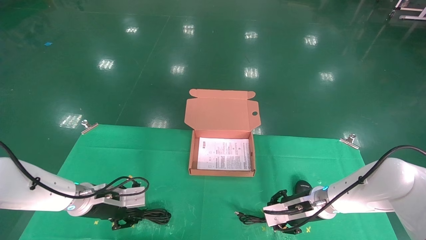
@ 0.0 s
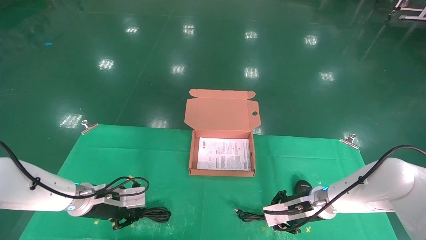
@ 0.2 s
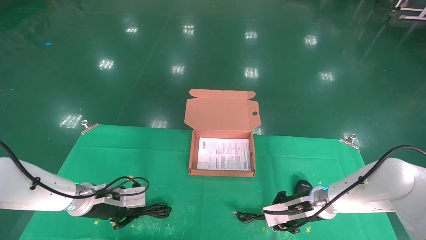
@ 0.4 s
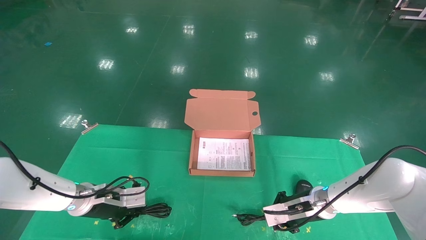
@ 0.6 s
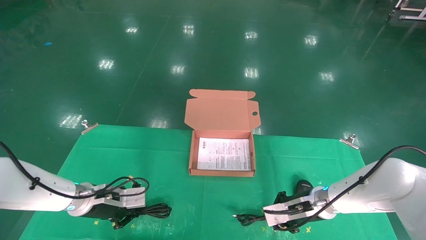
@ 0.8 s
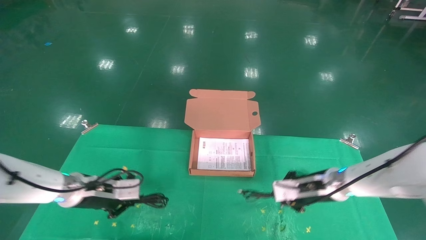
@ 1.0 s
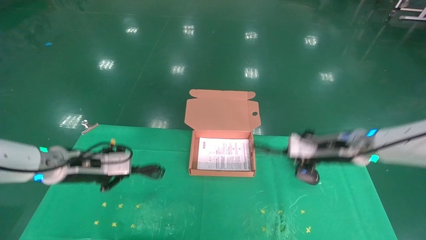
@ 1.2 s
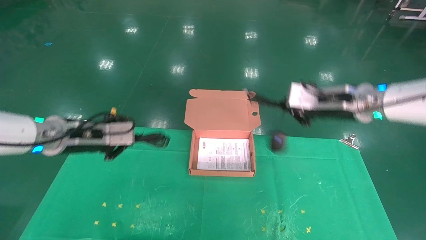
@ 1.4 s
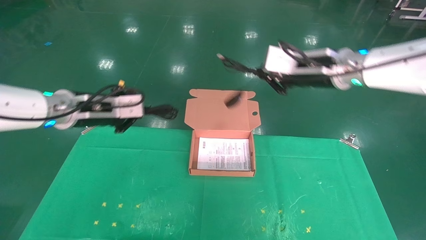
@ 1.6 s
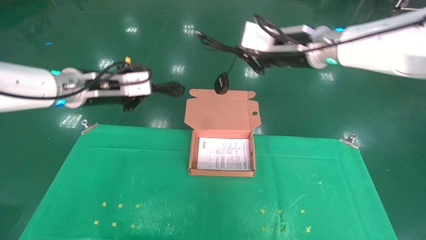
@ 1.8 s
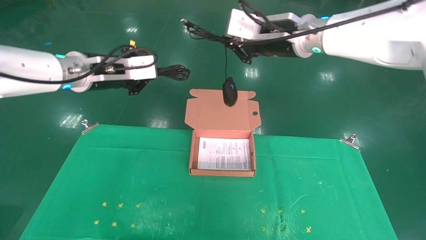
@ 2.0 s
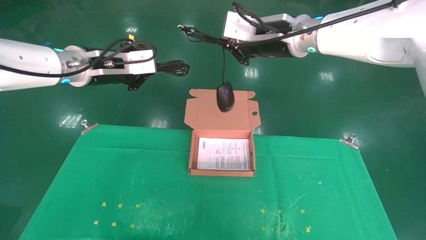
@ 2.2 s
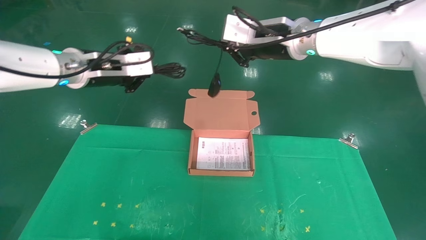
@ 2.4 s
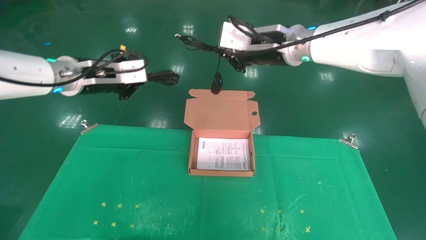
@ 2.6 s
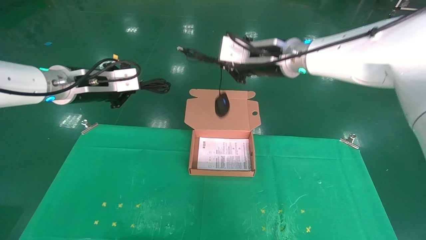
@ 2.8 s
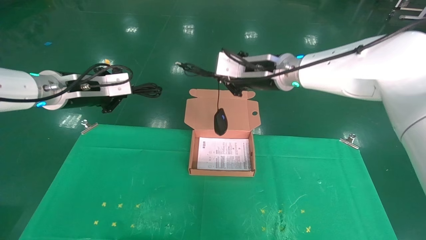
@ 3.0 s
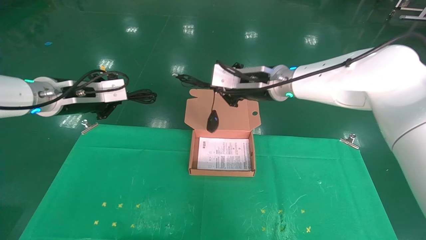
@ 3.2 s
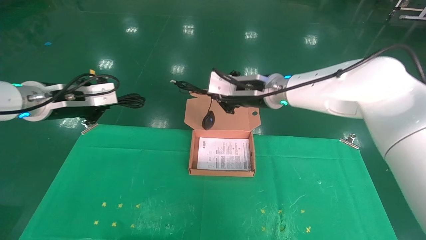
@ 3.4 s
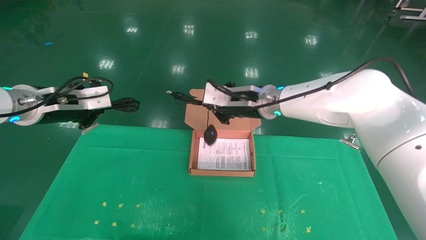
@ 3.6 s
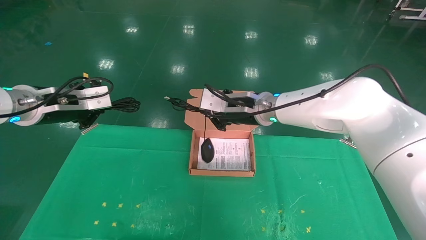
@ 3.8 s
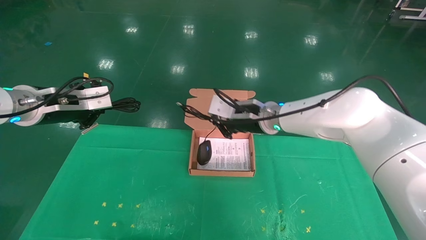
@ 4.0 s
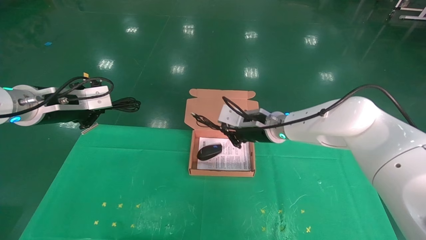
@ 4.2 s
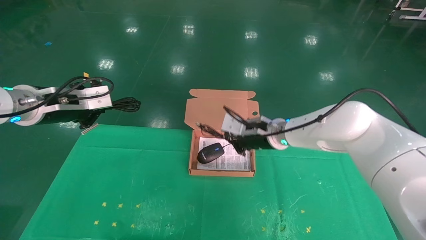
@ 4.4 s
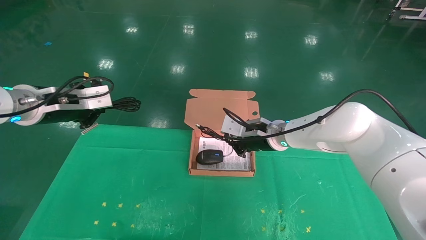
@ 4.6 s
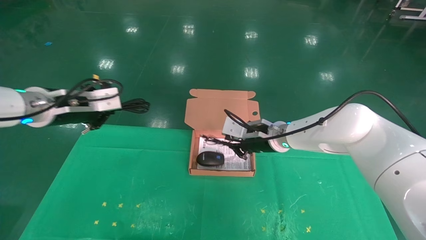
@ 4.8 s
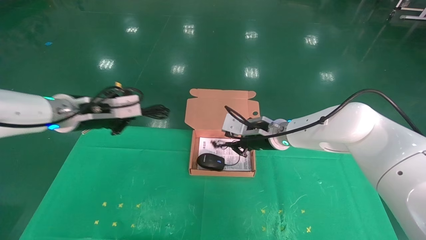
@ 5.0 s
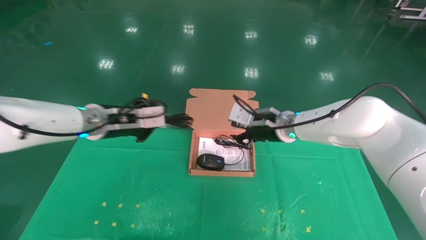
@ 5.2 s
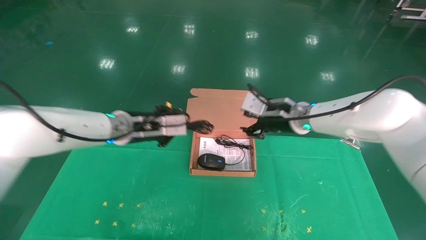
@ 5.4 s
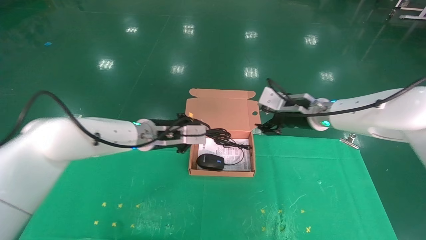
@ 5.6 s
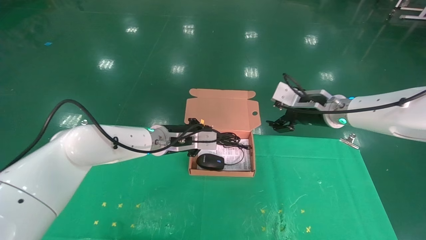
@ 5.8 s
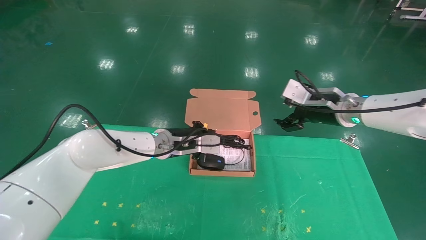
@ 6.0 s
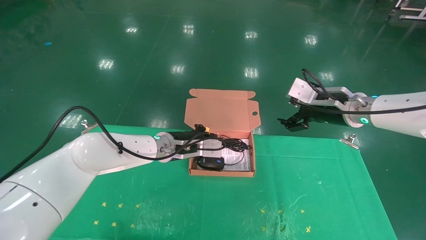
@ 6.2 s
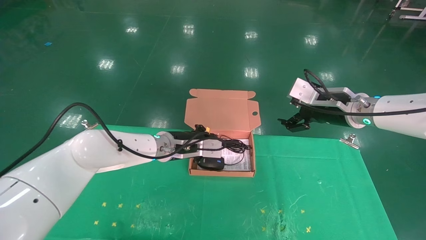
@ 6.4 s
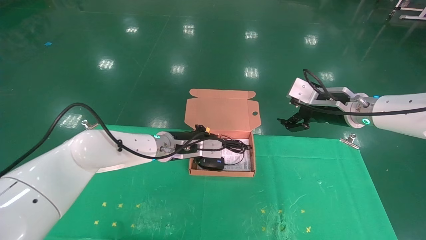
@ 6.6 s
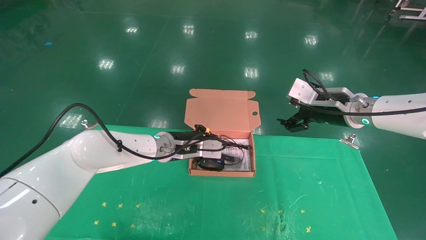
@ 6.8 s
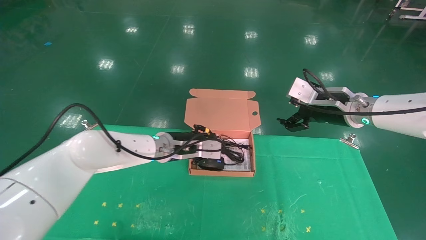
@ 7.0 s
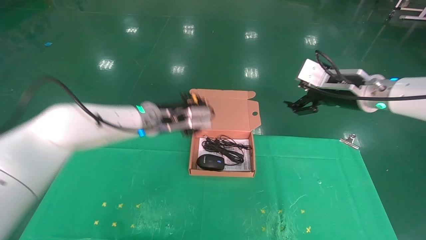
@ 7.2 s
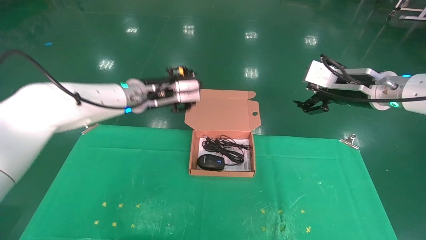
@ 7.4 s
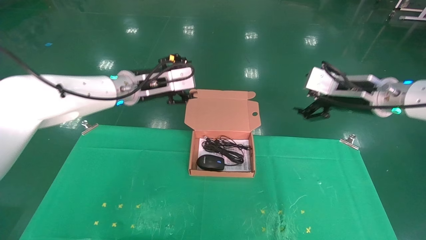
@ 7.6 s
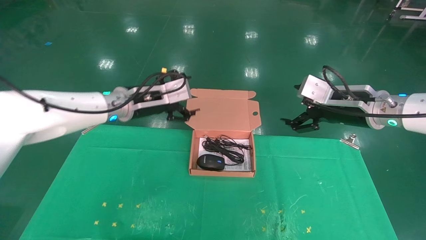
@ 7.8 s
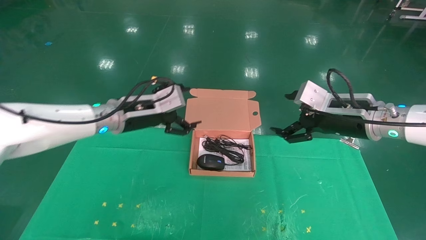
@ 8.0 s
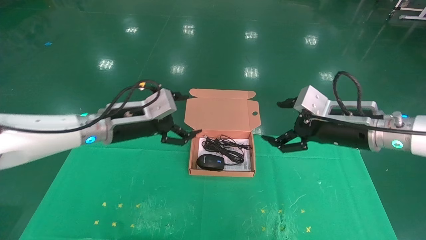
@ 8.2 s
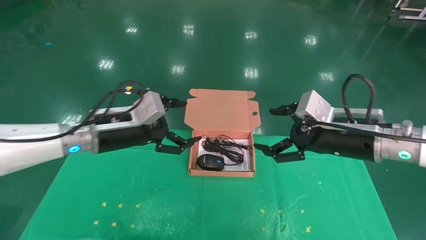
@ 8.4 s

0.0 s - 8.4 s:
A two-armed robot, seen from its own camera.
Task of the whole recording: grasp data cable left put into box grasp mouse right put into box.
Step, 0.8 s - 7.0 s: Place the mouse and power cord into the box.
0.0 s - 1.4 s: Both grippers move upward, roughly 20 cm. The left gripper closes up; the right gripper closes.
1.4 s - 2.8 s: The left gripper moves upward, roughly 10 cm; the right gripper is displaced to the left and upward by approximately 15 cm.
2.8 s - 4.2 s: The right gripper shifts approximately 15 cm downward; the left gripper changes place by about 5 cm.
4.2 s - 5.6 s: The left gripper is displaced to the right, downward and forward by approximately 20 cm. Meanwhile the right gripper heads to the right, covering approximately 10 cm, and opens its fingers.
5.6 s - 7.0 s: The right gripper heads to the right, covering roughly 5 cm, and opens its fingers.
7.0 s - 8.4 s: The left gripper is displaced to the left and backward by about 15 cm, and opens. Meanwhile the right gripper heads backward, covering some 10 cm.

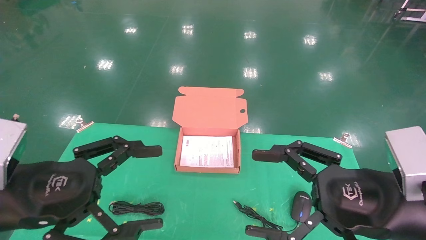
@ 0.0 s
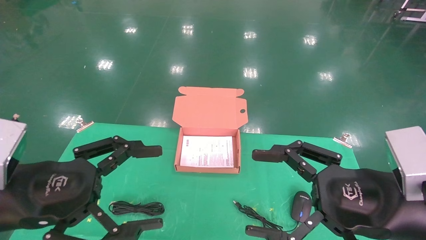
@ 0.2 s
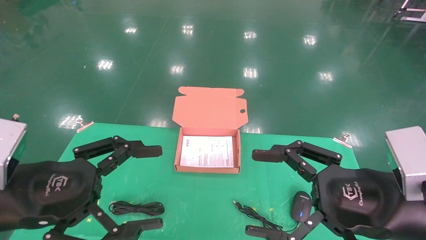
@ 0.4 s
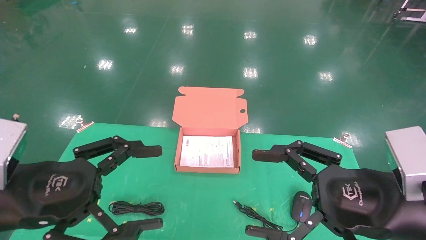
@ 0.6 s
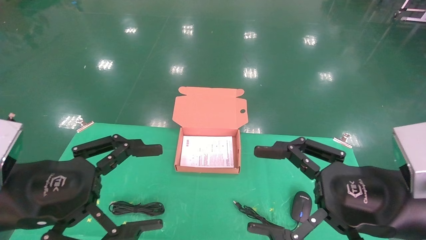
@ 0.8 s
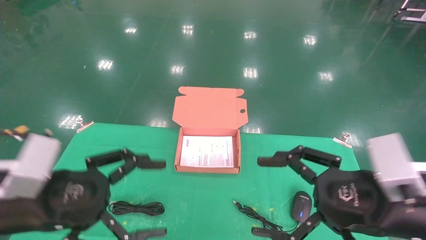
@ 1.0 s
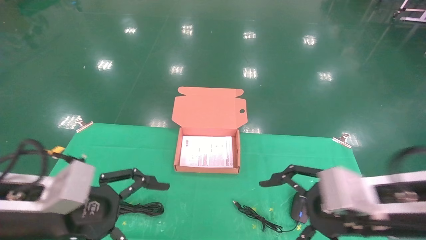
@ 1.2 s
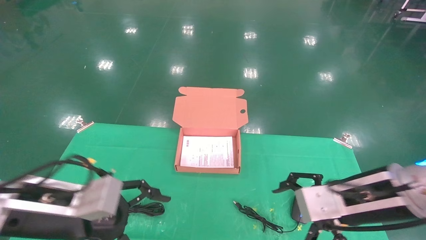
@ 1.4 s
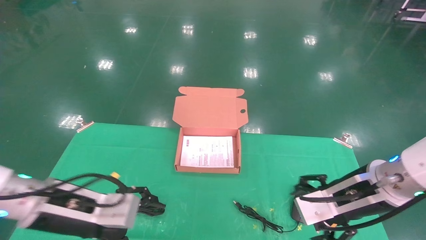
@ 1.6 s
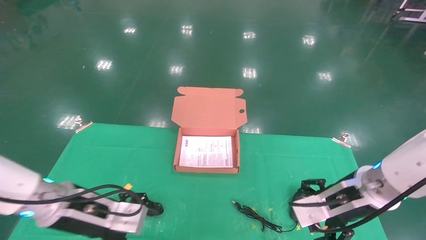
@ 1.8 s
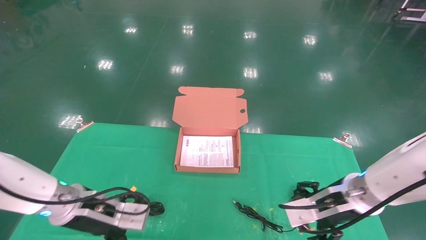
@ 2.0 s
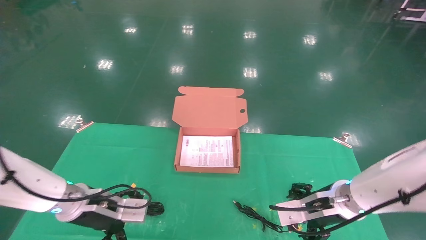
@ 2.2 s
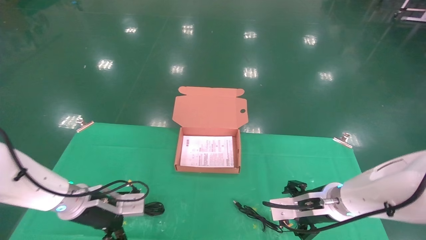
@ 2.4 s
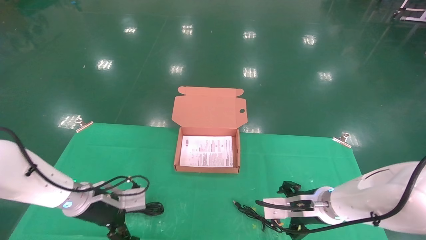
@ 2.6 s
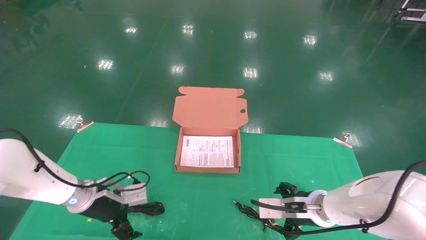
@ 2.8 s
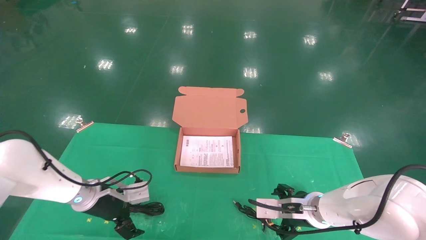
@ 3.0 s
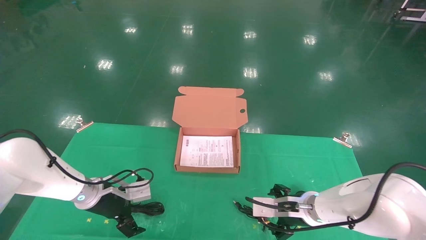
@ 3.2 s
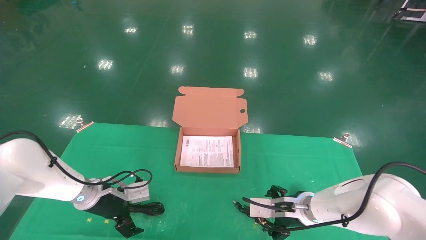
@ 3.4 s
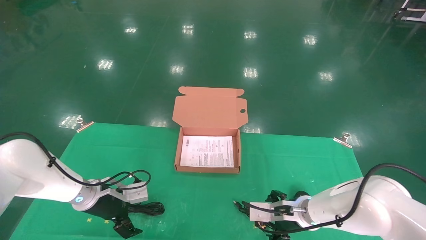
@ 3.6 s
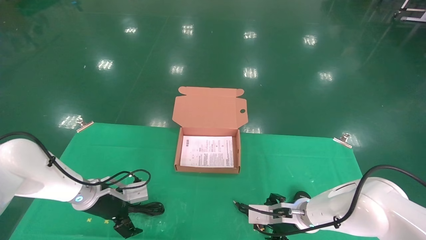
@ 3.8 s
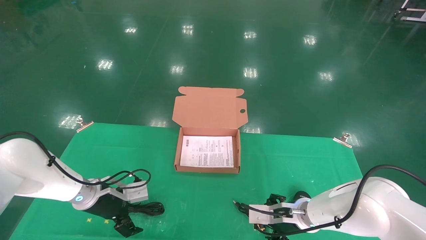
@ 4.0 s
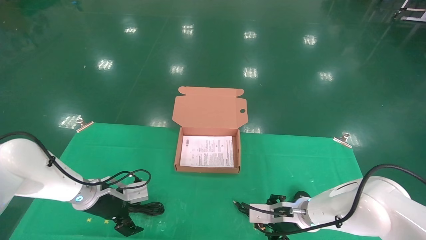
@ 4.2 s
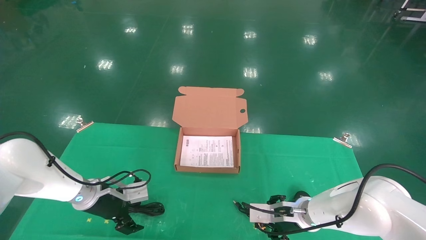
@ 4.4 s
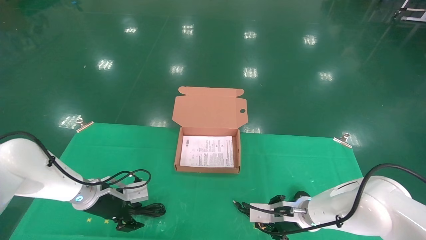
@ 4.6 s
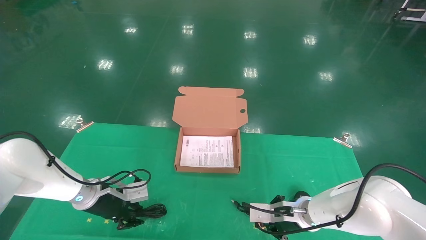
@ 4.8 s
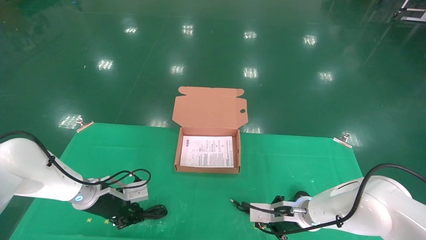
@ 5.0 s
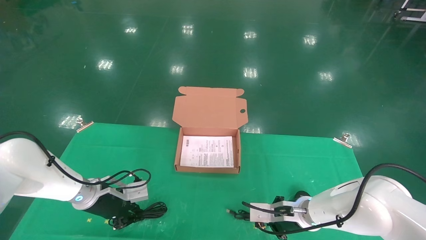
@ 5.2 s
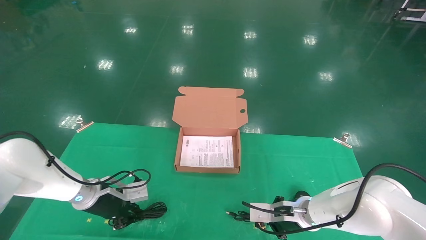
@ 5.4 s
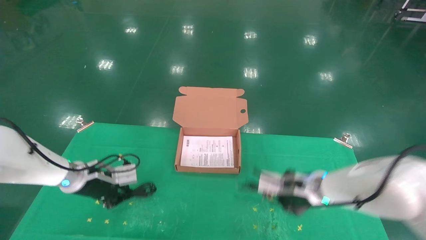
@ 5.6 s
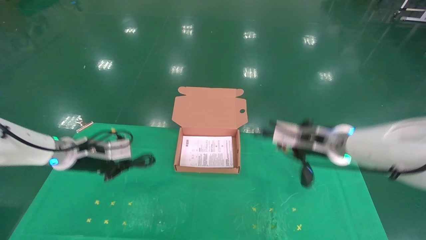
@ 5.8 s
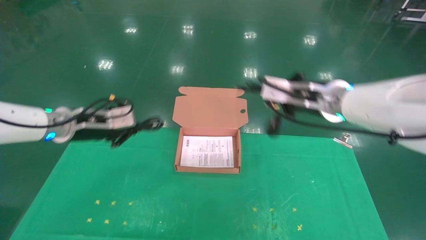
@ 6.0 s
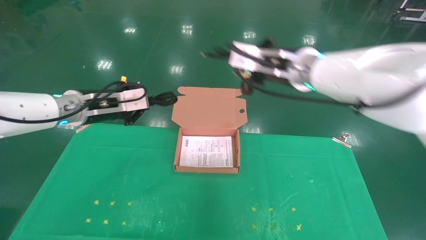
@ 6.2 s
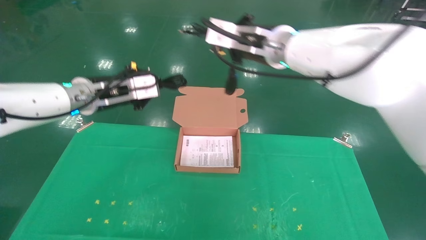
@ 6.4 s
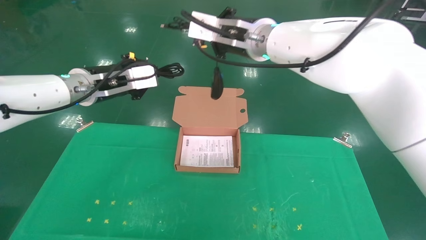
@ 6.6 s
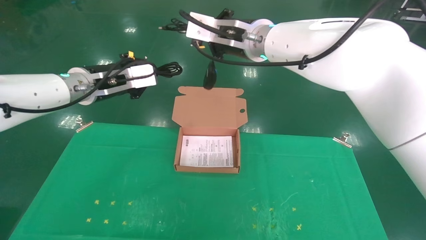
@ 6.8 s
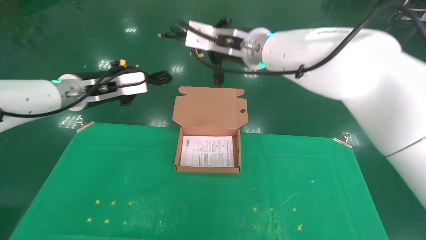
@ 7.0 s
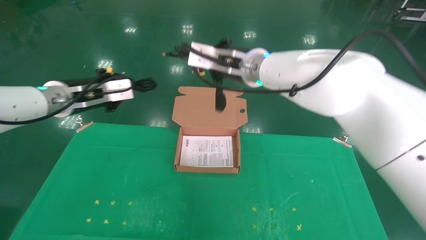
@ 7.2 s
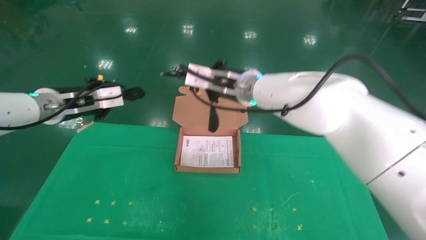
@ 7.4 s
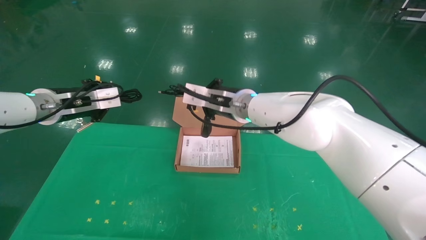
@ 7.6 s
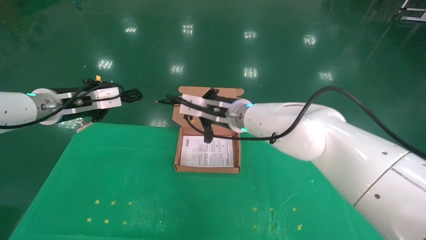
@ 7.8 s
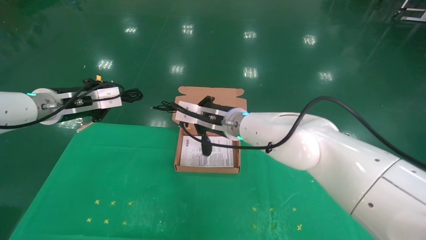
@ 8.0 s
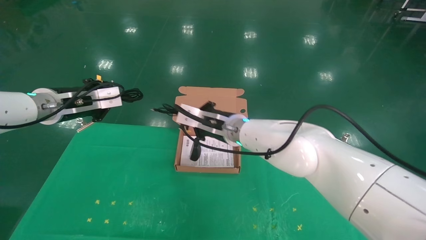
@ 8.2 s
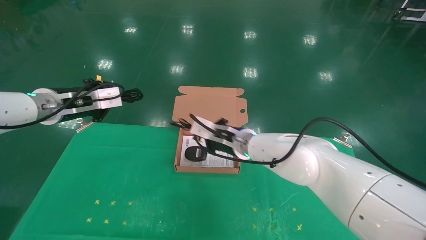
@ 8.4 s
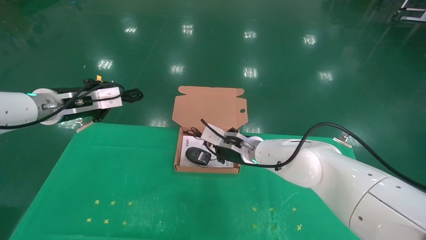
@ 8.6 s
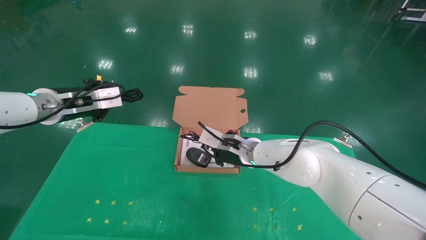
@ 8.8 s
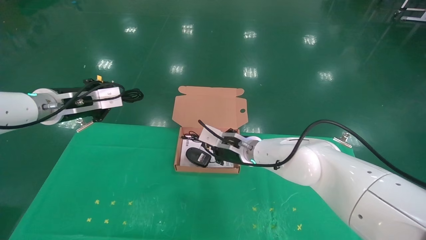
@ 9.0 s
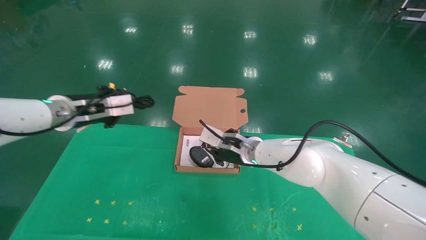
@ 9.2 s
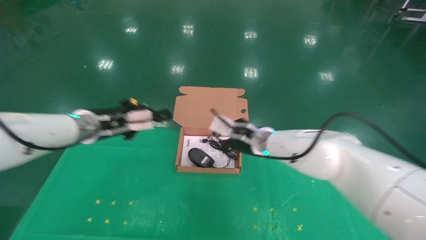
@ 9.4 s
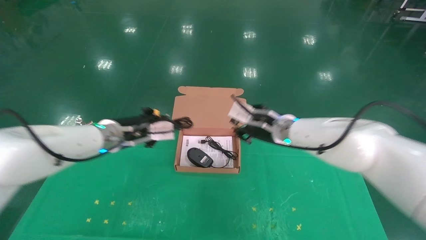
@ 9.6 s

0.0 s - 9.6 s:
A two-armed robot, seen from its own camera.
Task of the whole recording: grasp data cable left put into box grasp mouse right put into box.
Step, 1.2 s - 6.0 s: Grab and pick up both the mouse and power cord from the accessory packaging area at the same time.
0.0 s - 1.6 s: The right gripper heads forward, covering roughly 10 cm; the left gripper moves forward and downward, some 10 cm.
1.6 s - 3.2 s: The right gripper moves downward and forward, approximately 15 cm. The left gripper heads forward and downward, covering roughly 20 cm.
3.2 s - 4.8 s: The left gripper closes. The right gripper closes up.
4.8 s - 6.4 s: Both grippers travel together upward, about 30 cm. The left gripper closes up. Meanwhile the right gripper closes up.
6.4 s - 8.0 s: The left gripper moves to the left, about 5 cm, while the right gripper is displaced downward and to the left by approximately 15 cm.
8.0 s - 9.6 s: The right gripper goes approximately 10 cm to the right, while the left gripper moves to the right and downward, roughly 15 cm.
